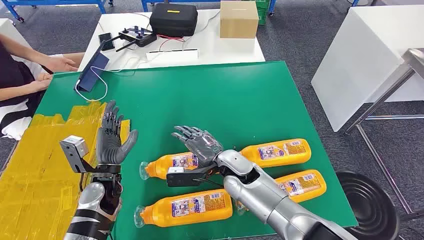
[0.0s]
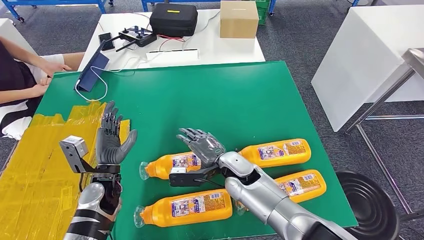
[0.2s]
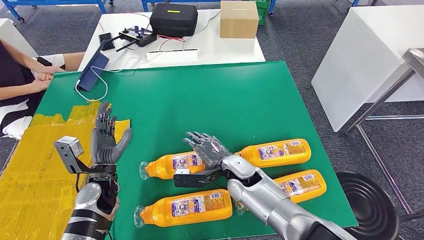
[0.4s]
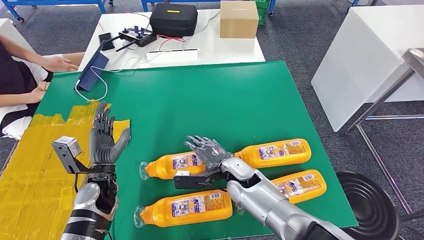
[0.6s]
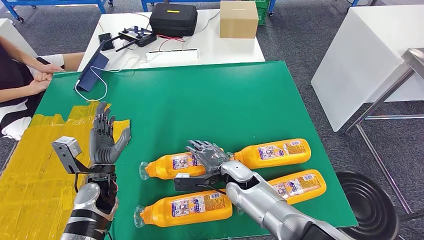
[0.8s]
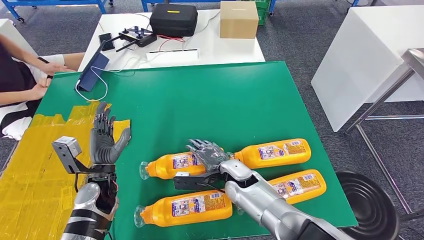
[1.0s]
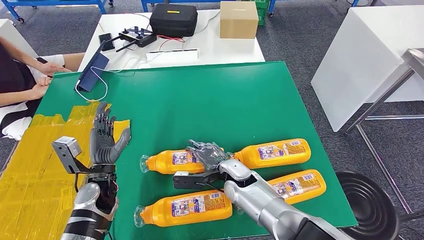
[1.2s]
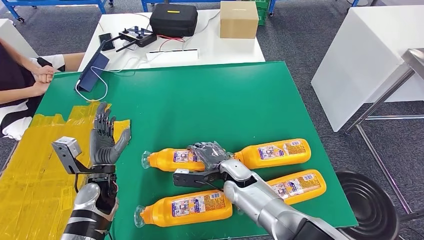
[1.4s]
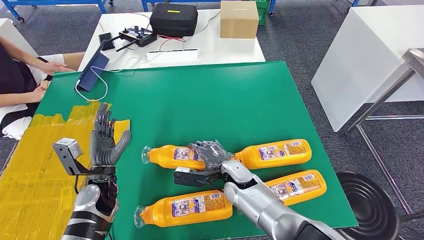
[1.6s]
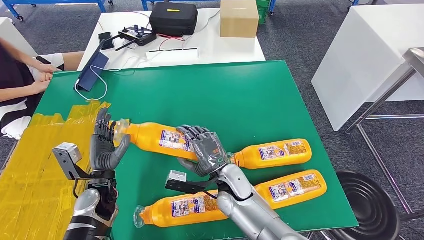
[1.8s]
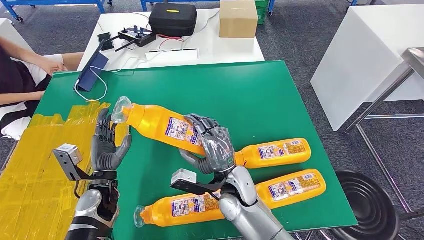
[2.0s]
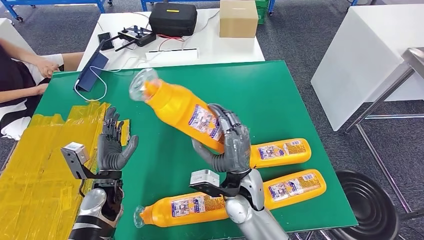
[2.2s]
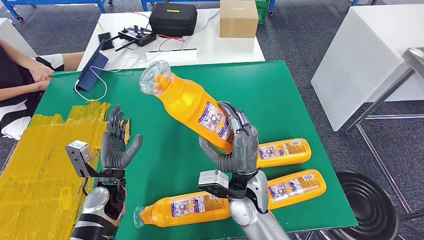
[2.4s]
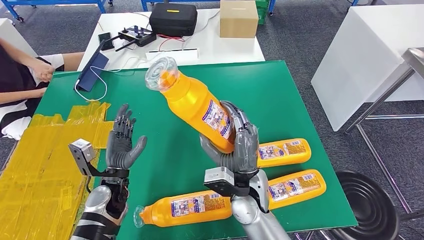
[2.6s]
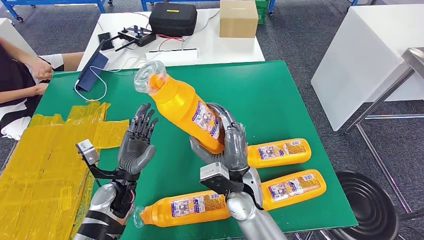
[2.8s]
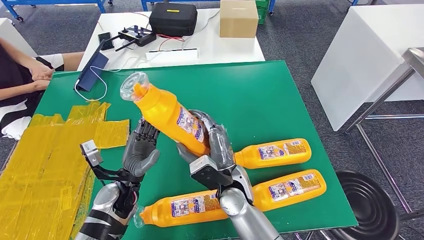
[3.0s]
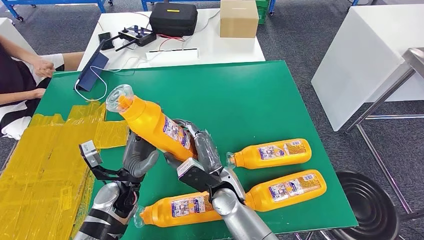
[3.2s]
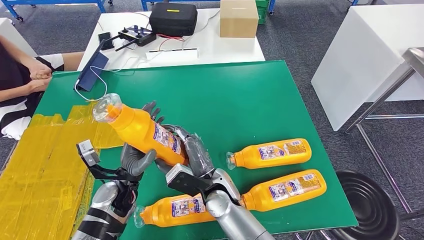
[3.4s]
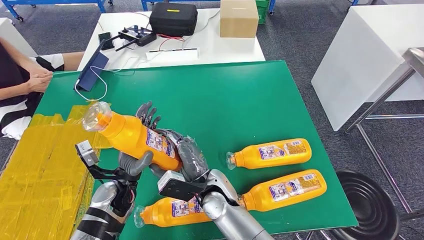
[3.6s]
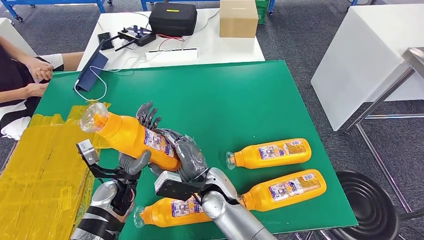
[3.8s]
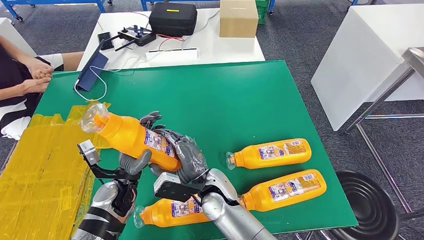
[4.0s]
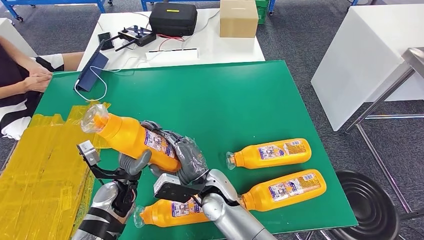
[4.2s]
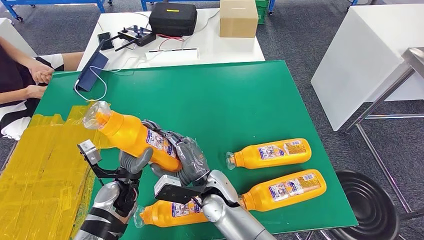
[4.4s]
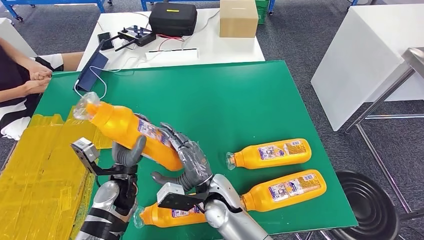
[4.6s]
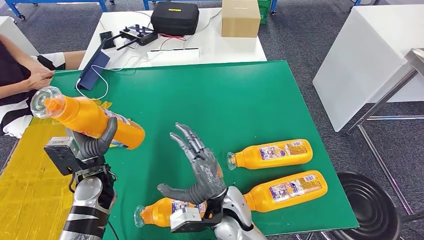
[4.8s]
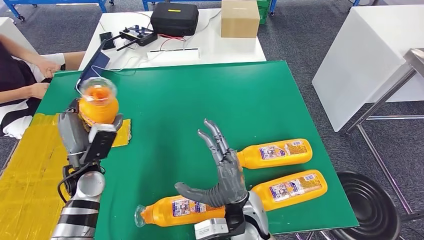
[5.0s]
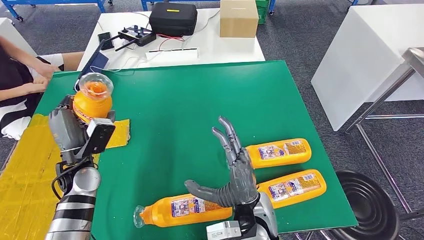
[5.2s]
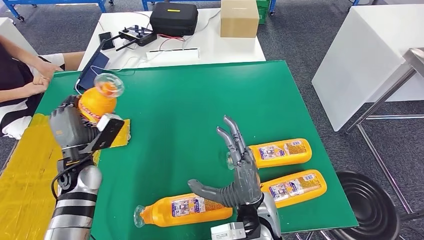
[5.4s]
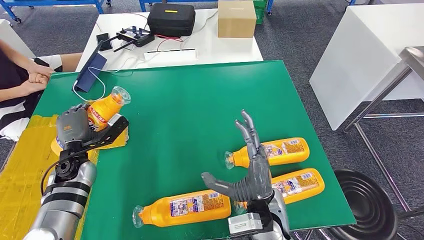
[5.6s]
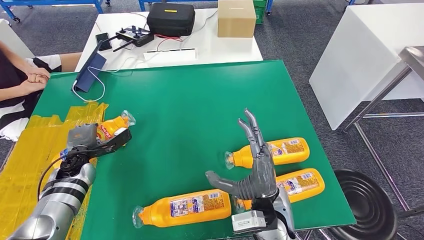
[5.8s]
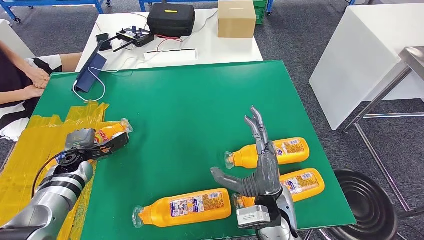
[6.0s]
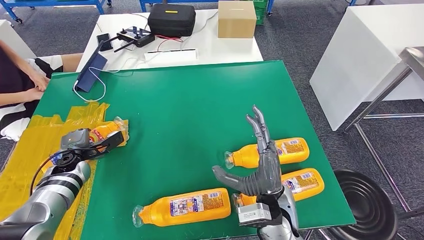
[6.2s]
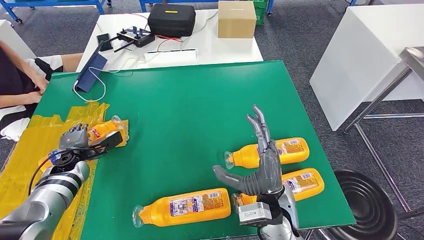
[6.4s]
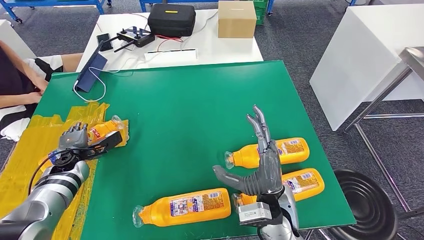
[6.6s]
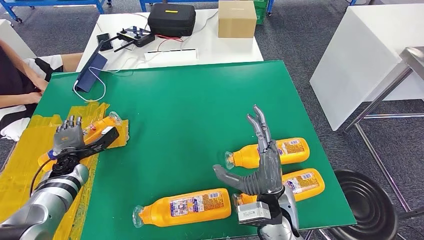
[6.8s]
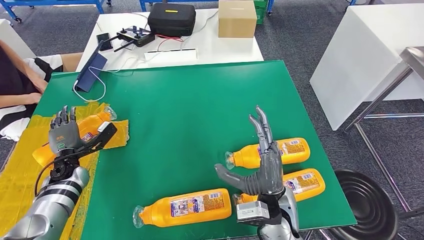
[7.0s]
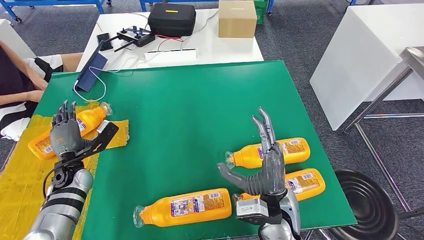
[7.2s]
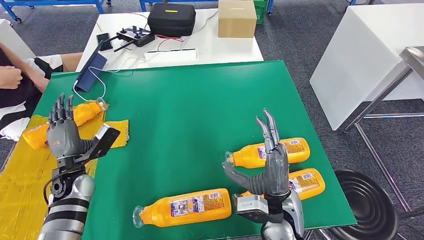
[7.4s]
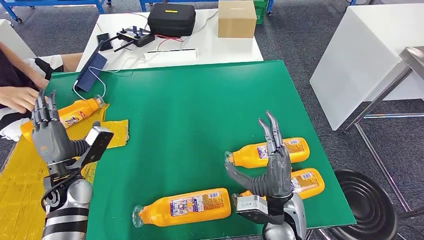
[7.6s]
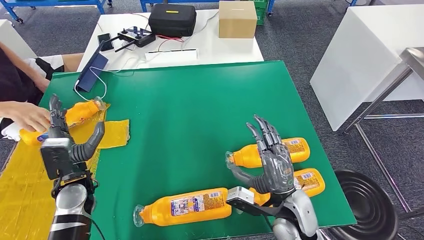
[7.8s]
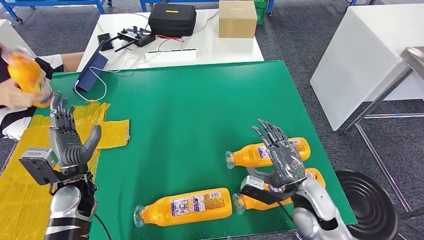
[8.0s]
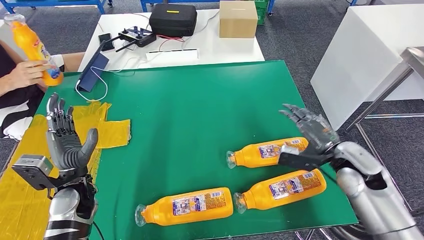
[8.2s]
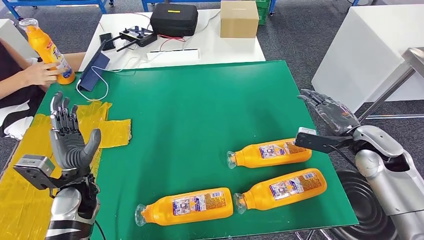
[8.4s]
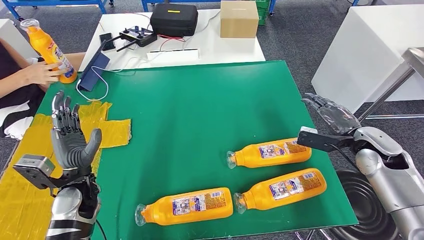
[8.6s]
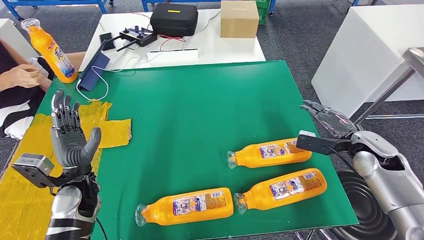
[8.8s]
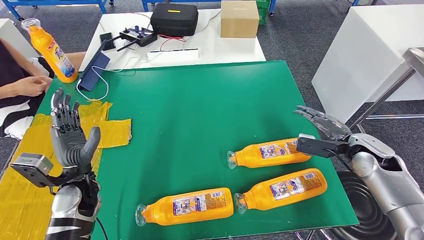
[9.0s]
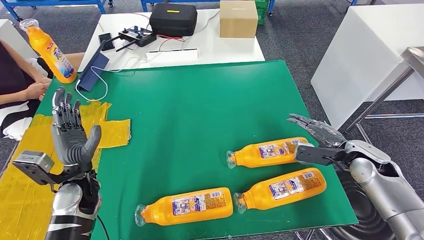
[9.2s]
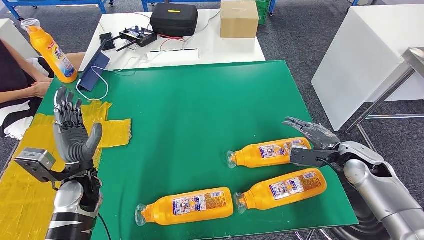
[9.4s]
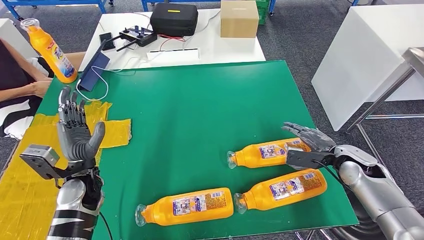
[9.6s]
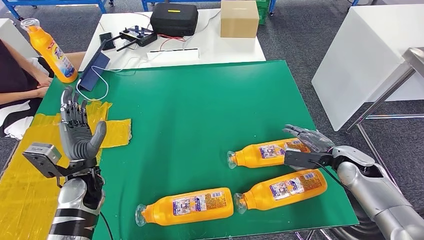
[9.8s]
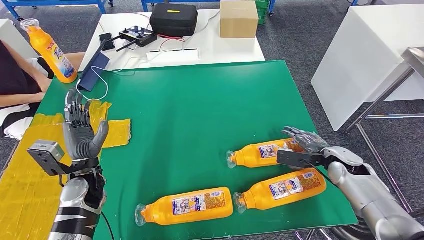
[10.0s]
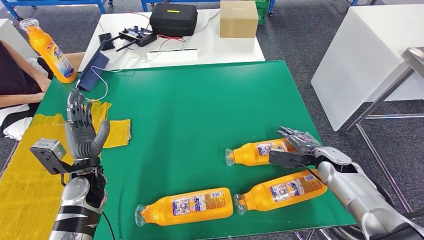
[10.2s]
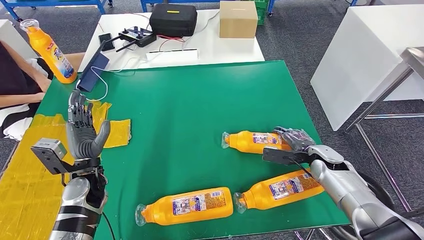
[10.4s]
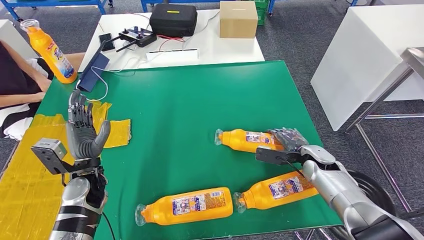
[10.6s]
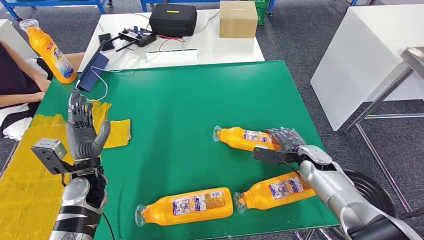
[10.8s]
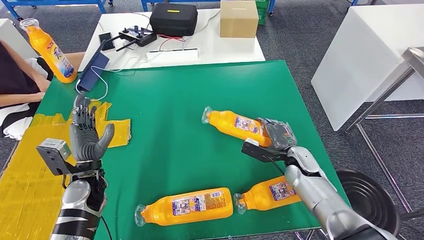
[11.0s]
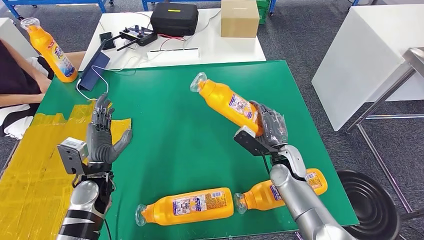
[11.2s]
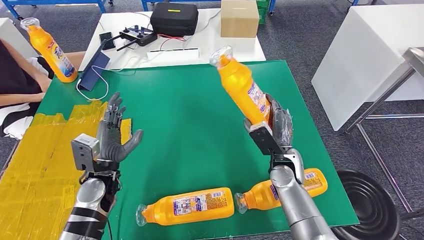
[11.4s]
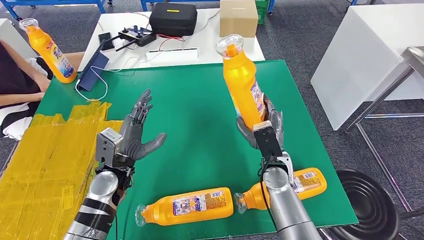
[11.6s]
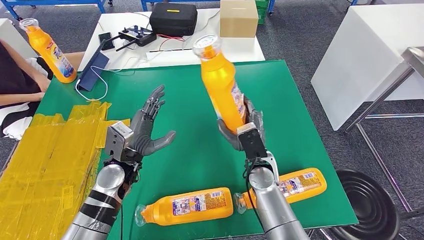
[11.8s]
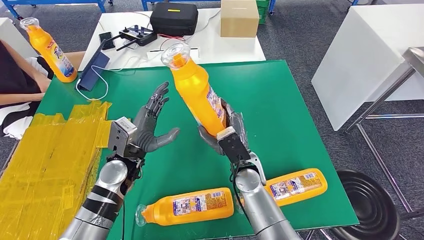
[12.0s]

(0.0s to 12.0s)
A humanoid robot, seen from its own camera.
Step, 0.0s - 3.8s: Take the fast-moving consumer goods bottle from the table.
Step, 4.0s - 8.2s: Flip the fast-moving consumer goods bottle to the front side.
3.0s - 4.4s: The right hand moves some 5 cm.
6.0s - 7.6s: The left hand goes approximately 10 cm backward and upward.

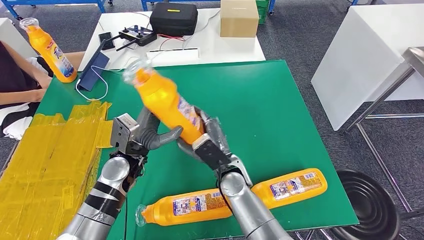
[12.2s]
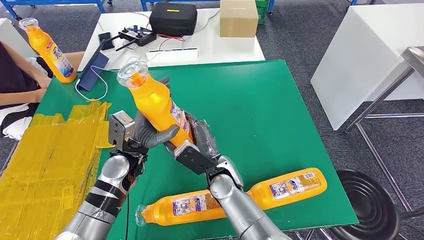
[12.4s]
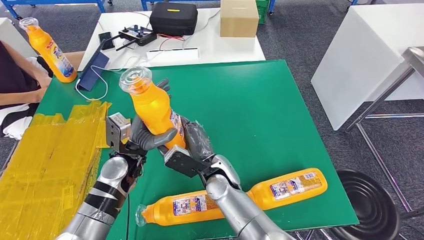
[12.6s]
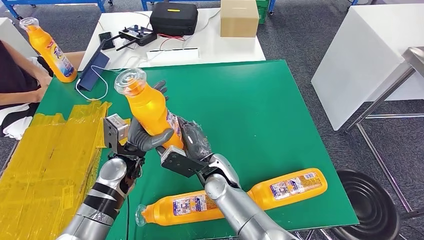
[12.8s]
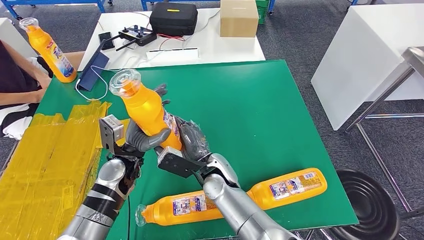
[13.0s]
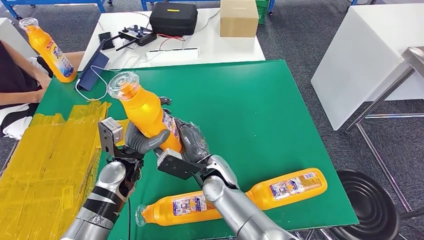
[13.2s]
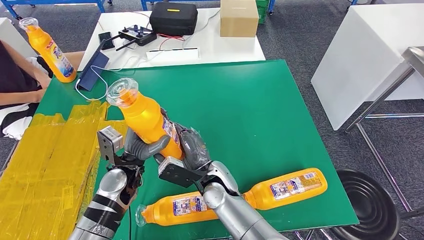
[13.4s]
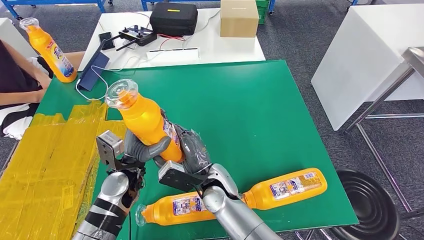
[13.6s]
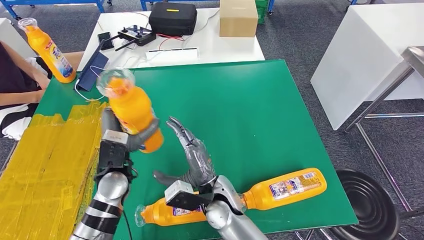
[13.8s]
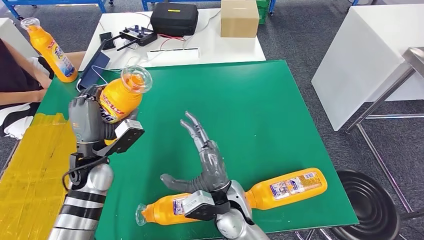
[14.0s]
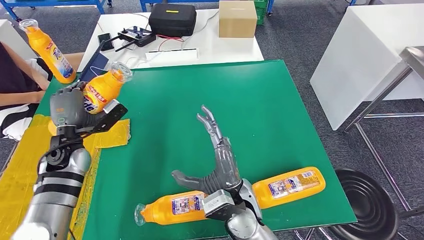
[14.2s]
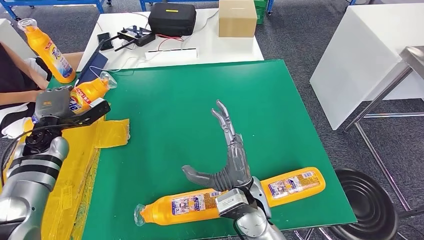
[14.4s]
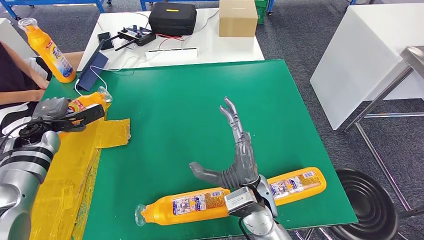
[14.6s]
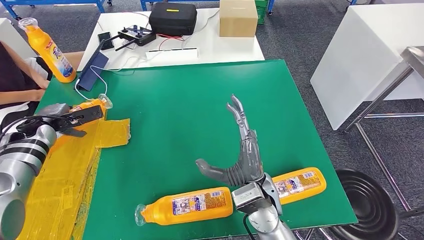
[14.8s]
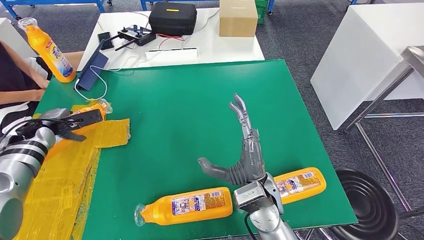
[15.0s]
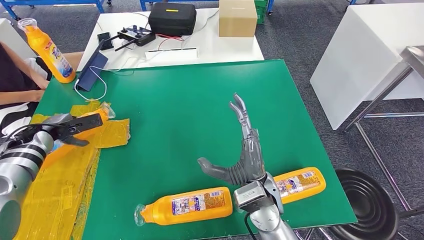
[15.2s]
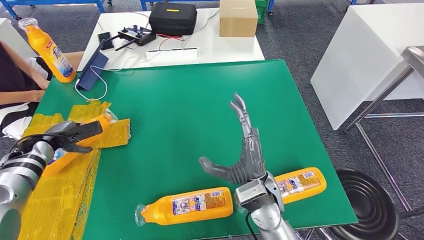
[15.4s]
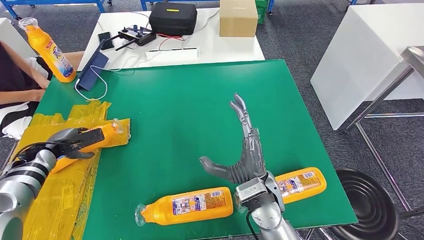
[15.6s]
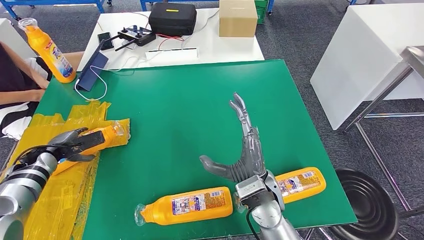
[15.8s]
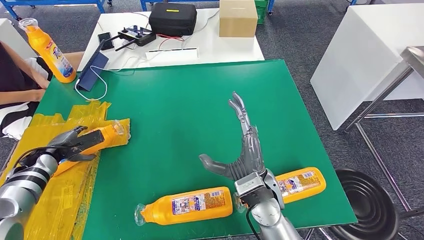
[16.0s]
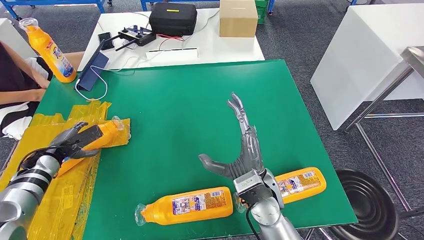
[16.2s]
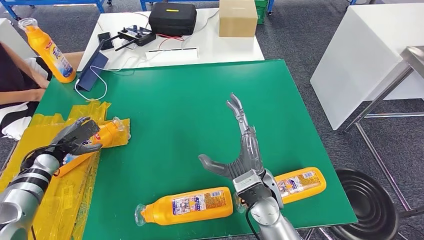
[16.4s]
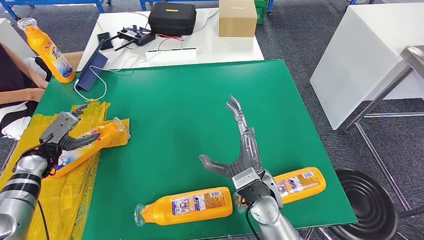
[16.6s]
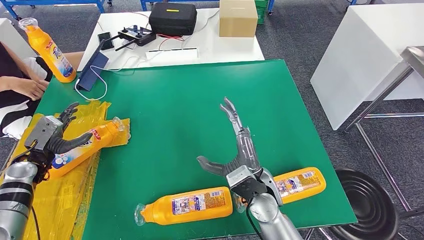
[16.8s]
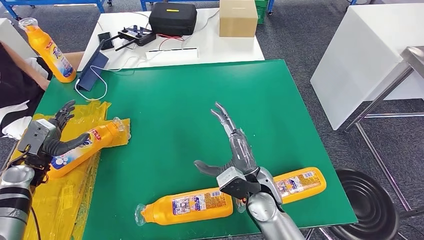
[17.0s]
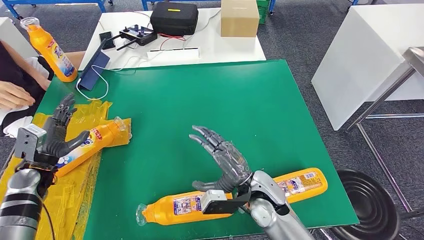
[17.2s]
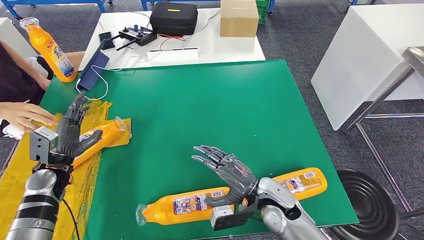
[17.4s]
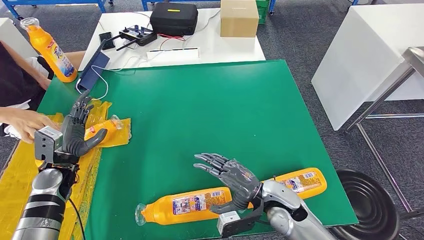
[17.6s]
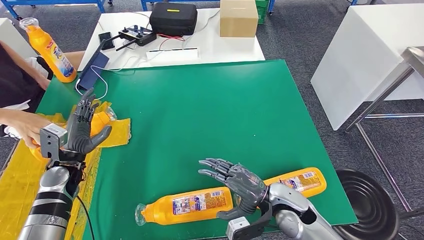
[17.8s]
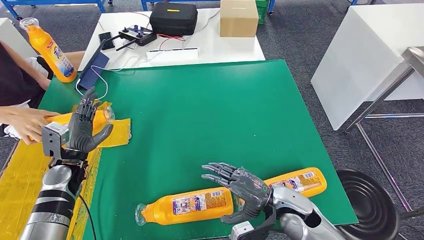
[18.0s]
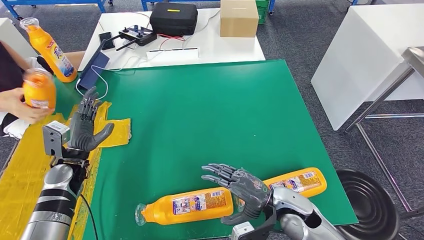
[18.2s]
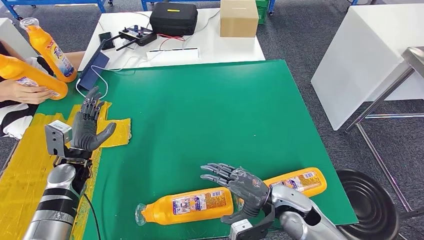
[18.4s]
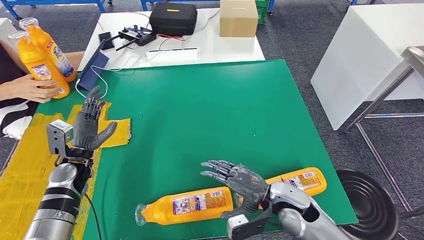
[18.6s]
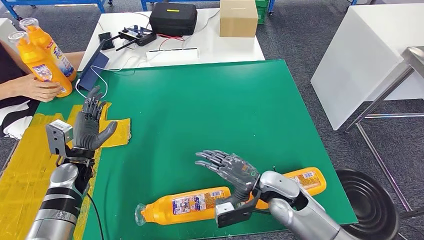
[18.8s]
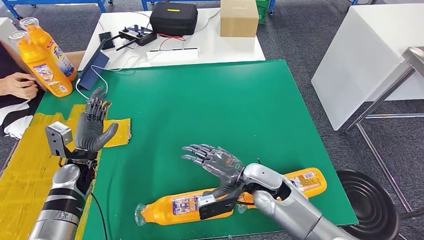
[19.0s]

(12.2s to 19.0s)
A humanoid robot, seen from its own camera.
Step, 13.4s - 16.8s: Flip the fast-moving consumer goods bottle to the front side.
12.2s - 13.6s: The right hand shifts some 5 cm to the left.
15.0s - 16.2s: The left hand heads downward and backward, covering roughly 10 cm.
16.2s - 17.6s: The left hand moves to the right, some 10 cm. Meanwhile the right hand moves downward and to the right, roughly 10 cm.
17.6s - 19.0s: The right hand ends up some 5 cm from where it was.
